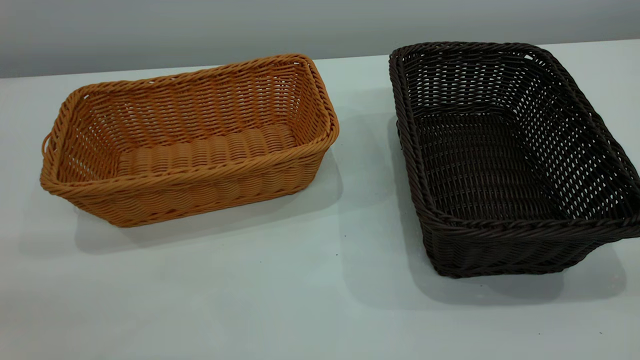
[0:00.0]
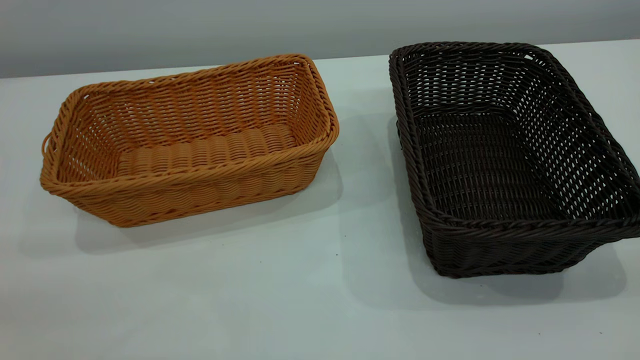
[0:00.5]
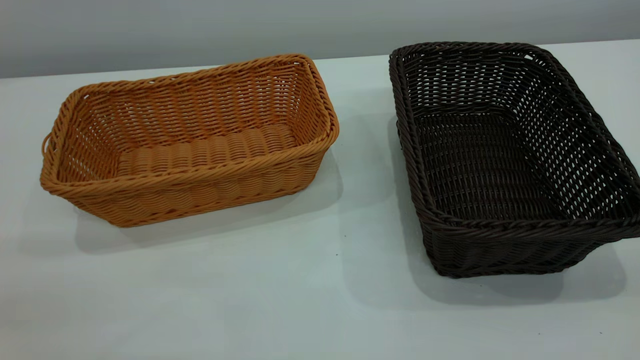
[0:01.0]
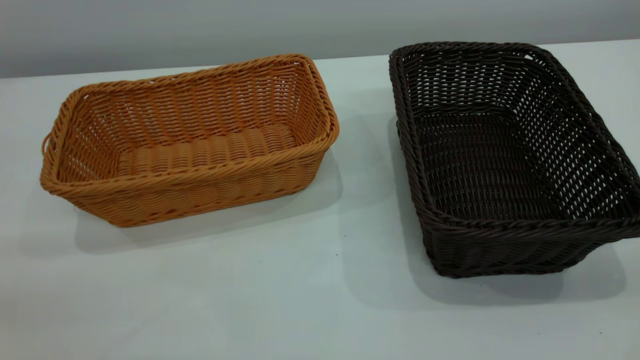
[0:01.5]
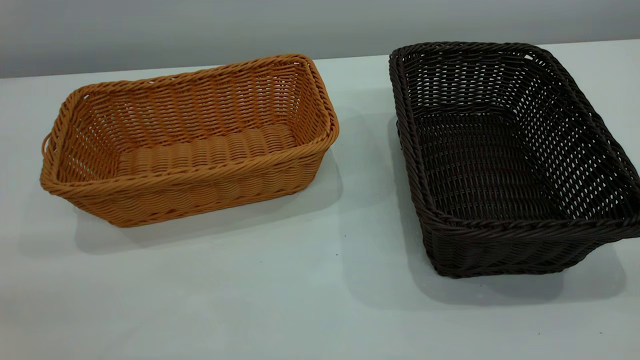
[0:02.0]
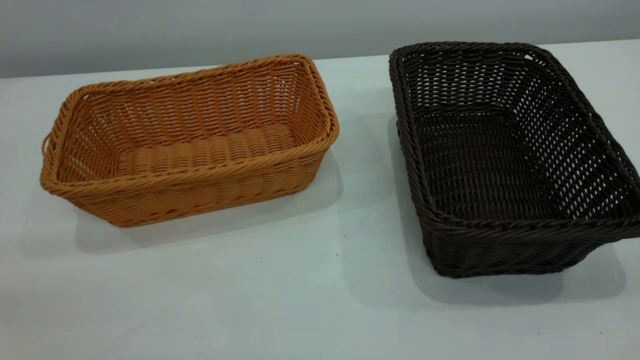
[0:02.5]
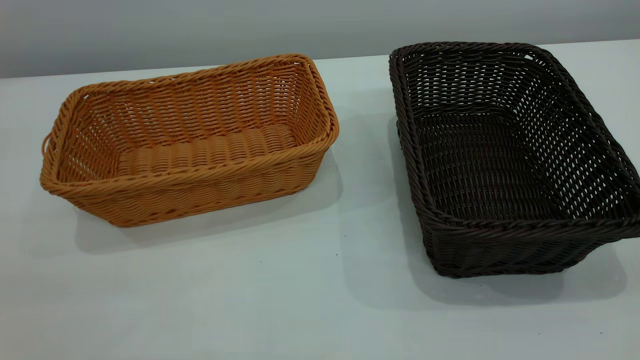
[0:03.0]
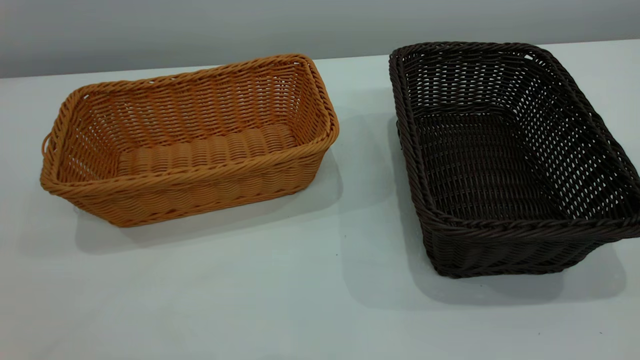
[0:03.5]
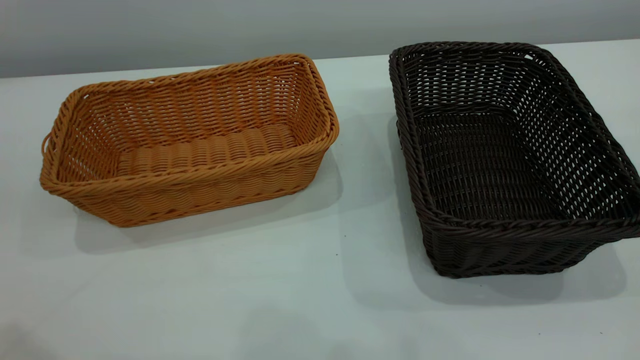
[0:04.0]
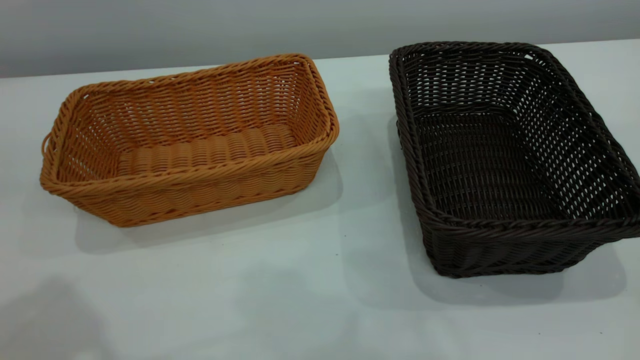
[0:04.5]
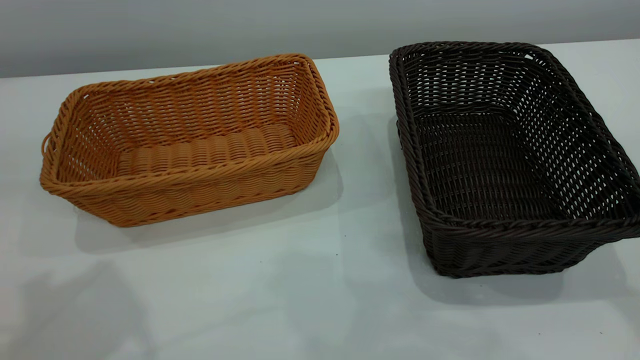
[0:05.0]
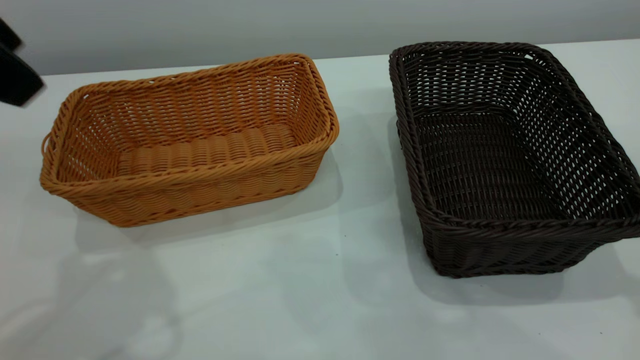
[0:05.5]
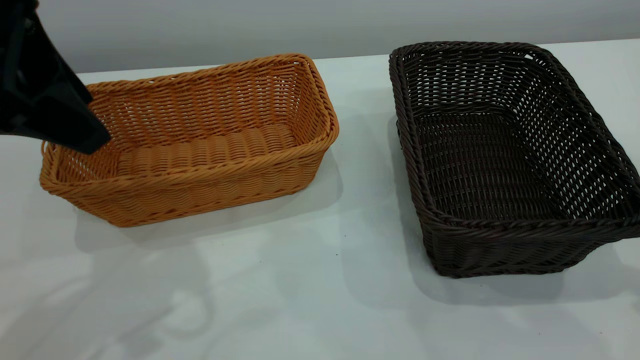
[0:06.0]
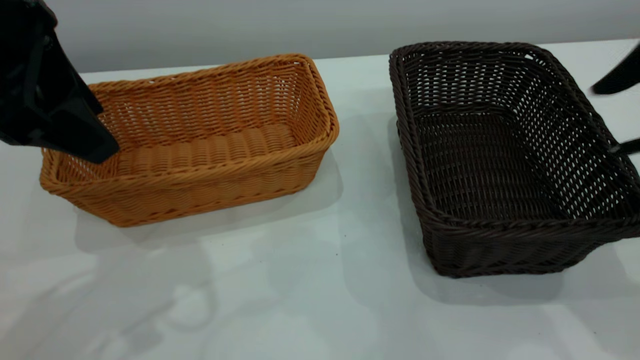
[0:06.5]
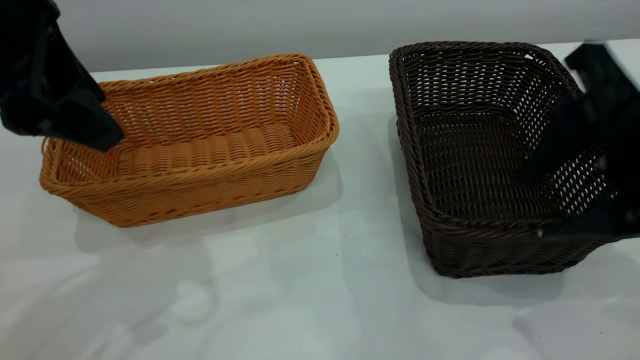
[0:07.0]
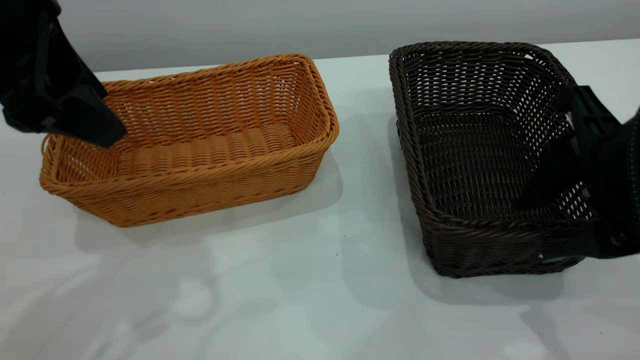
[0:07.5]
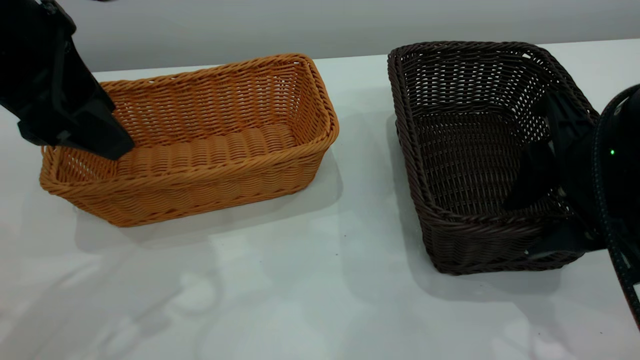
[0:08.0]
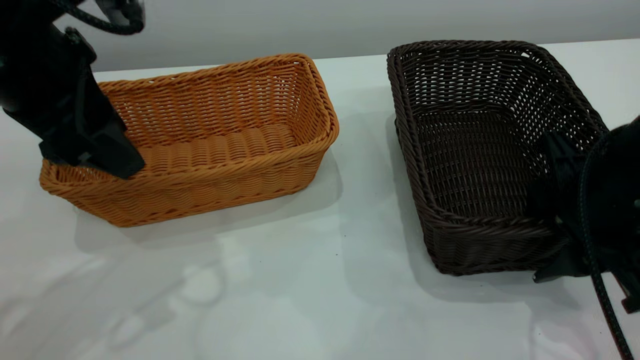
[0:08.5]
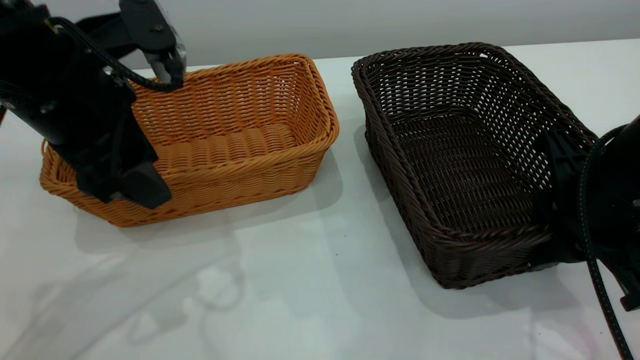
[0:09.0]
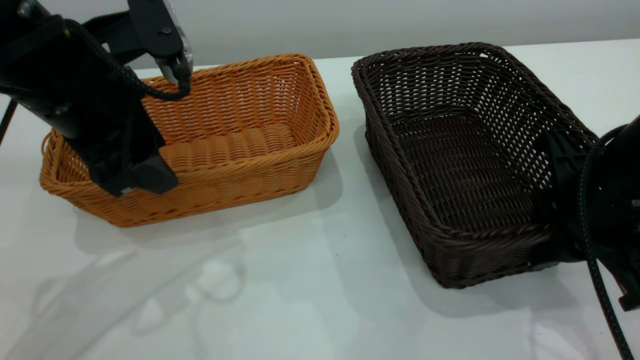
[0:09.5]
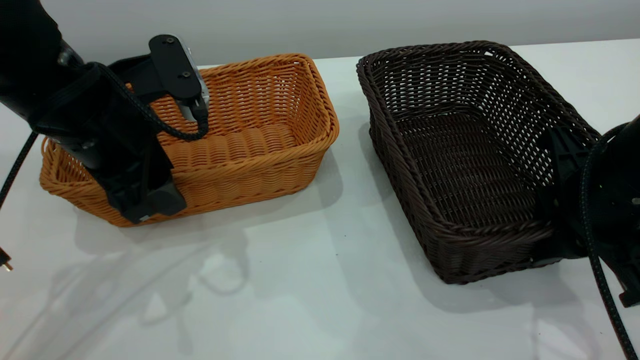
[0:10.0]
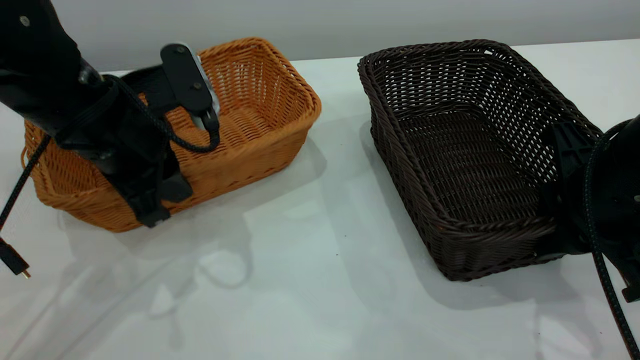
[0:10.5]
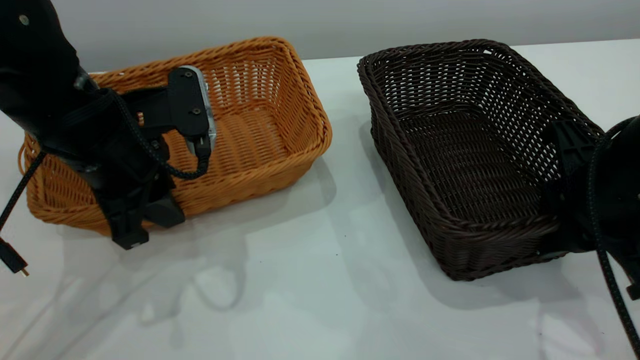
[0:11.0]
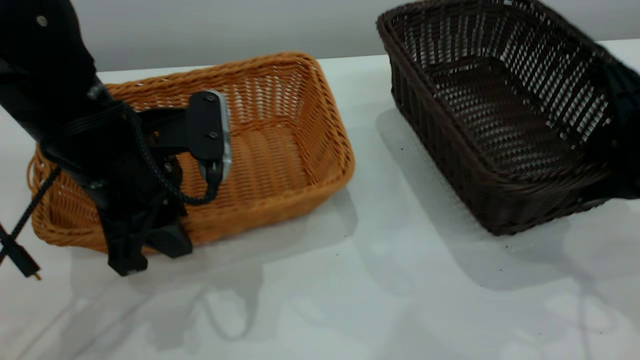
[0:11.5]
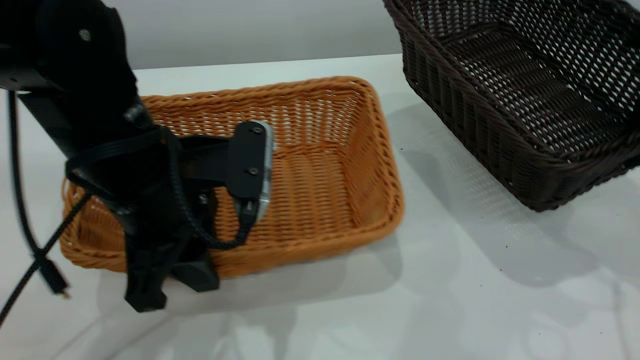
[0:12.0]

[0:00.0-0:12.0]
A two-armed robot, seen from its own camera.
Task of the whole recording: the left gripper grasp the brown basket and place it in the center of the table, the right gripper grasp the black basket and place it inside the brown one.
Step, 0:00.0 to 0:11.0: Pick up the light basket with the right gripper.
0:00.0 to 0:02.0: Both grippers stay put.
0:04.0 to 0:06.0: The left gripper is displaced forward, downward and to the right by approximately 15 cm.
0:06.0 to 0:08.0: The right gripper travels downward, to the left and forward by some 15 cm.
0:08.0 to 0:10.0: The right gripper closes its fingers. Meanwhile the left gripper is displaced downward by roughly 10 cm.
0:10.0 to 0:12.0: The left gripper is displaced to the right and backward by approximately 10 cm, and closes. Meanwhile the right gripper heads to the right and upward, covering roughly 10 cm.

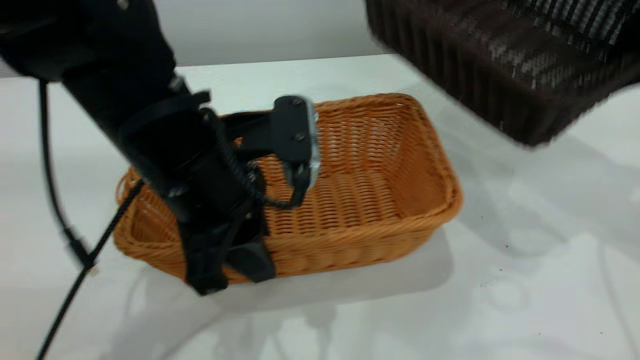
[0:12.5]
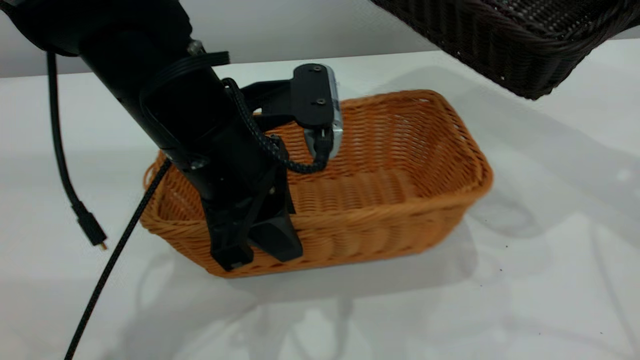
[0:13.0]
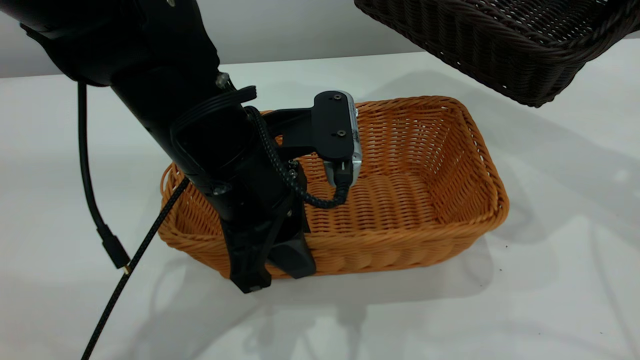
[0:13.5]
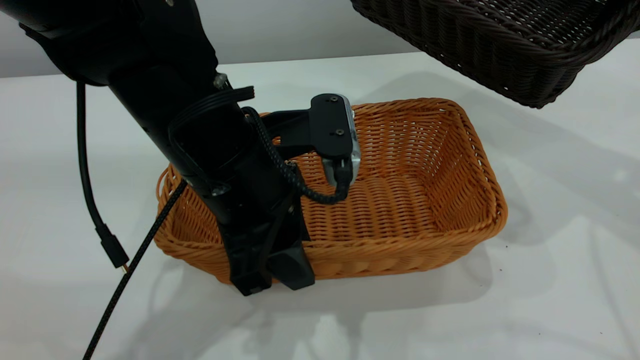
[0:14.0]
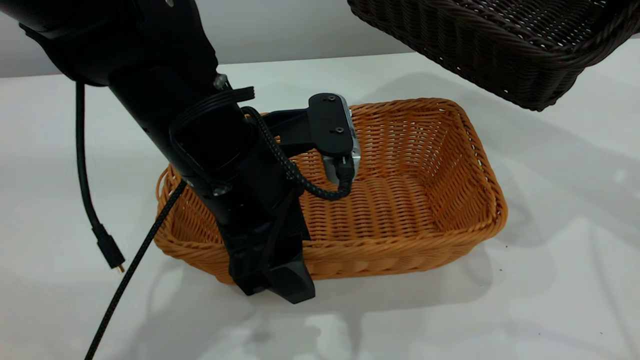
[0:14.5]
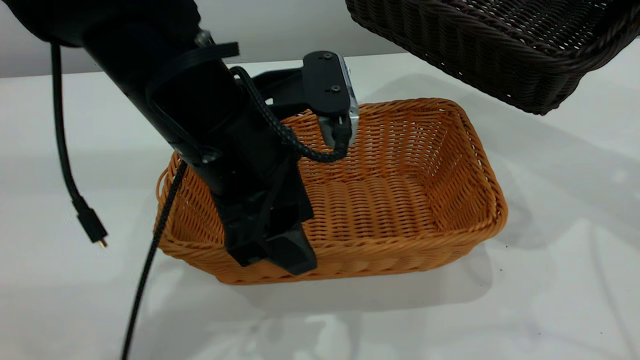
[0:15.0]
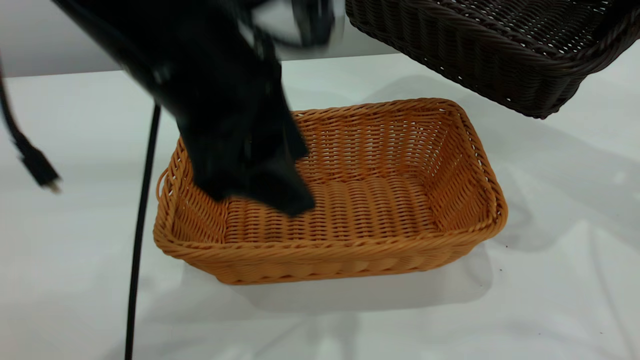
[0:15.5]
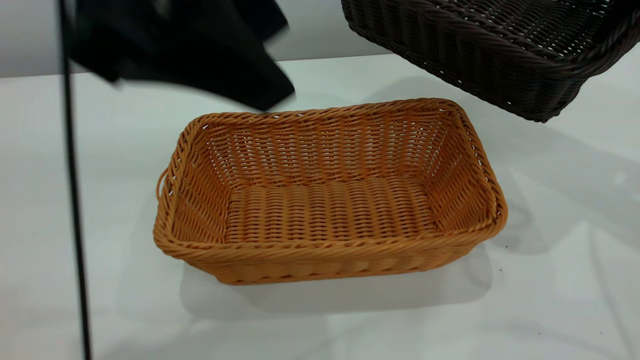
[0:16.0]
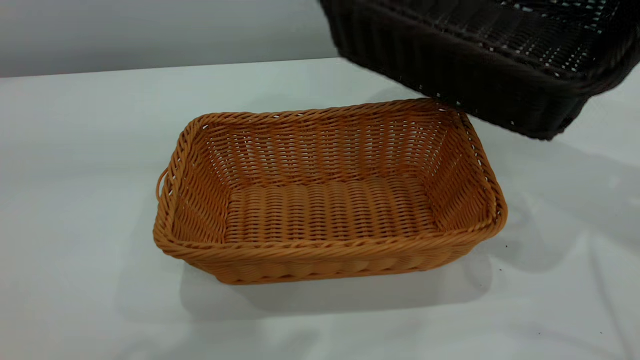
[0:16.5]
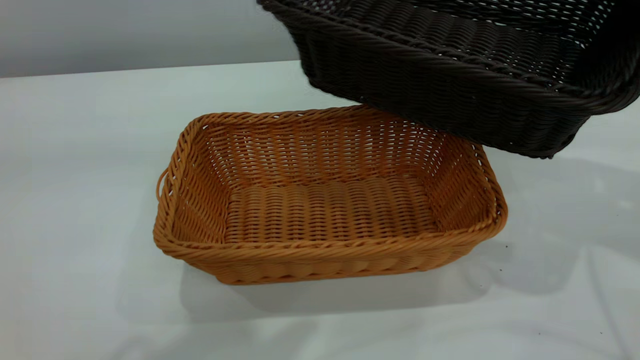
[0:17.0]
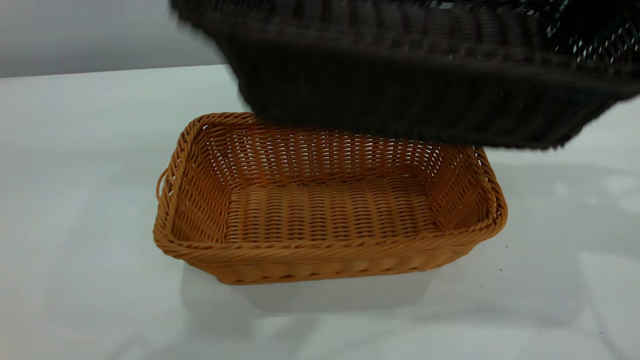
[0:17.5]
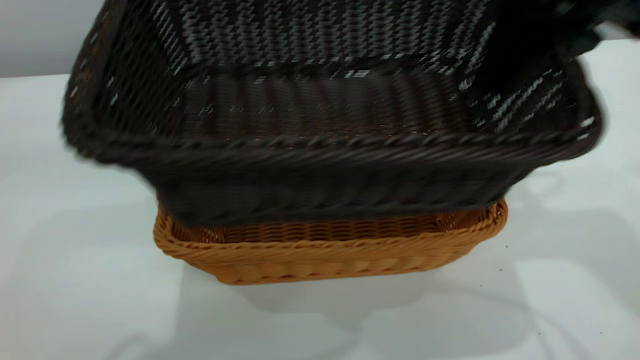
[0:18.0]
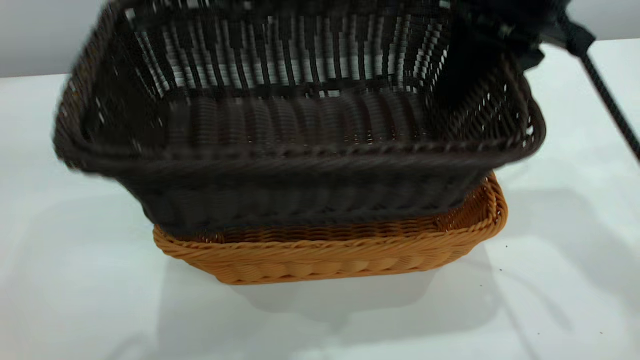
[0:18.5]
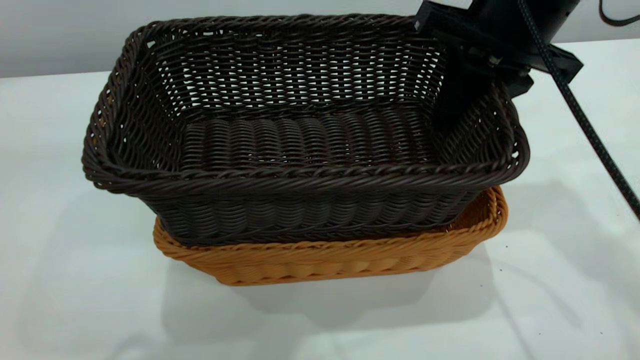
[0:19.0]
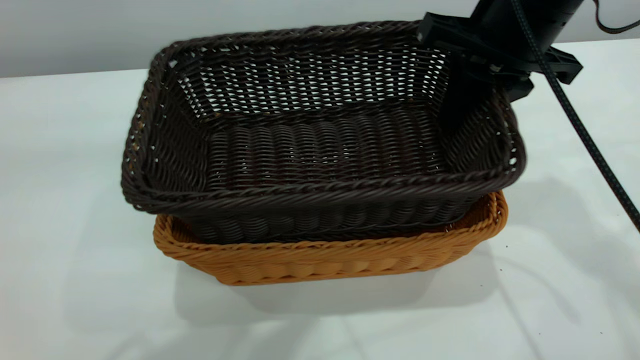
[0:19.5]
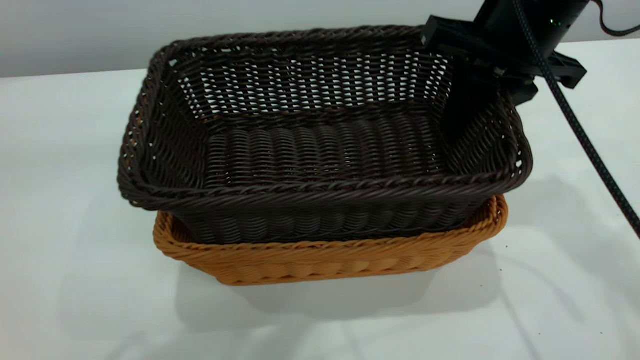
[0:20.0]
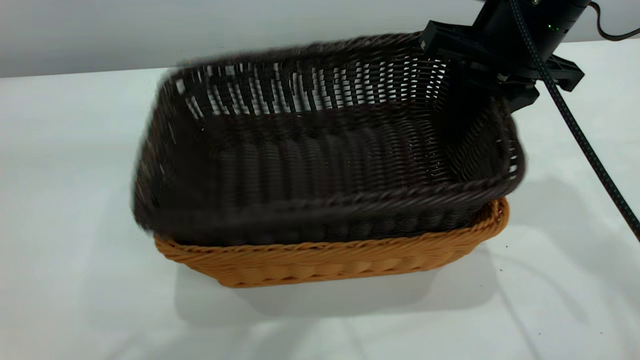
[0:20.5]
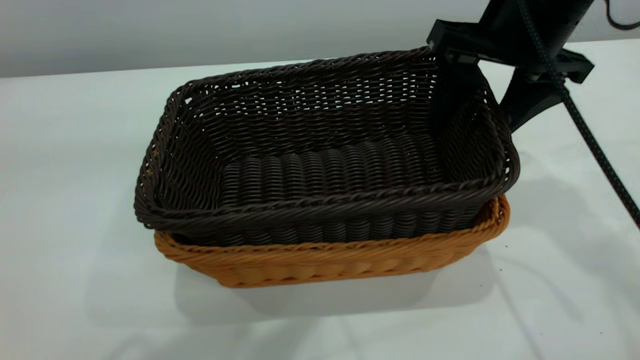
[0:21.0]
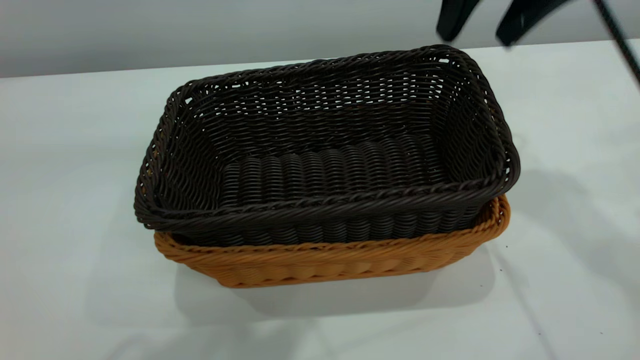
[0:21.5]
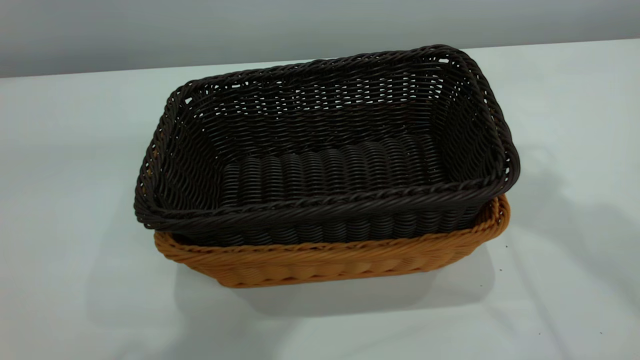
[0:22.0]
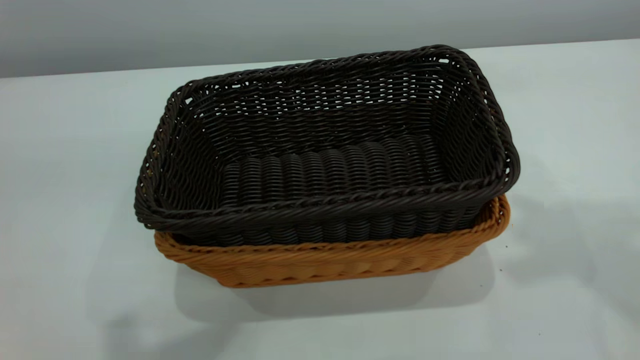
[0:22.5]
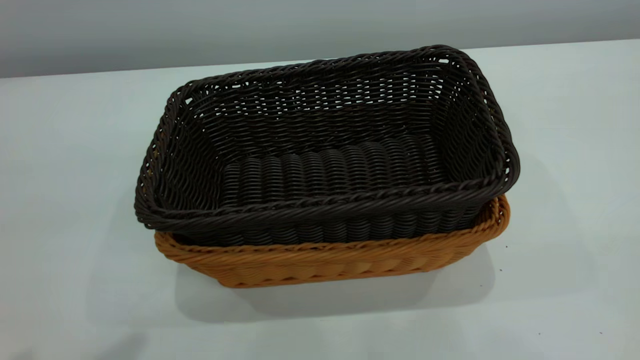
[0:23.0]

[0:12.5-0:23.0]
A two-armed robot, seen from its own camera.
Task of the whole recording: the left gripper grasp the brown basket and place it in the center of the table, the right gripper grasp the black basket and place it inside the brown one.
Step, 0:12.5 to 0:15.5: Place the light-colored basket in the center.
Step, 0:16.0 to 0:21.5: Place the dark basket on top of the light basket.
0:12.5 to 0:14.5: The left gripper opens its fingers.
0:14.5 to 0:16.5: The left gripper travels upward by roughly 25 cm.
0:16.5 to 0:19.0: The right gripper moves to the left, some 10 cm.
0:19.0 to 0:21.0: The right gripper opens.
0:21.0 to 0:23.0: The right gripper is displaced upward, backward and to the right by about 35 cm, and closes its fingers.
